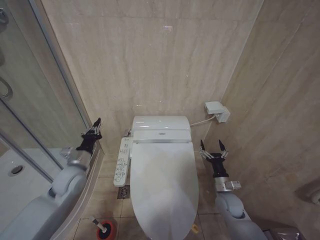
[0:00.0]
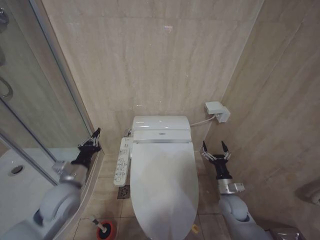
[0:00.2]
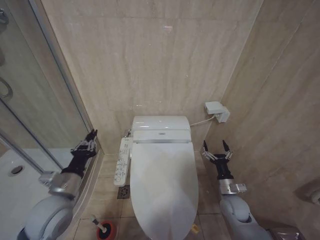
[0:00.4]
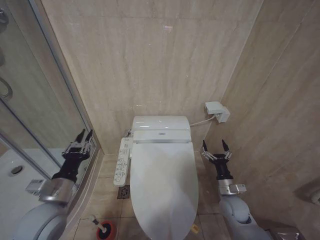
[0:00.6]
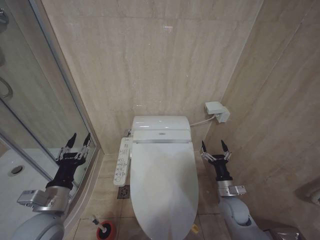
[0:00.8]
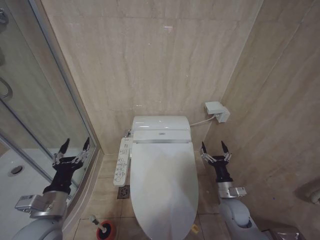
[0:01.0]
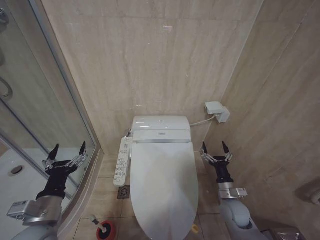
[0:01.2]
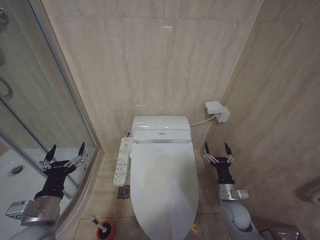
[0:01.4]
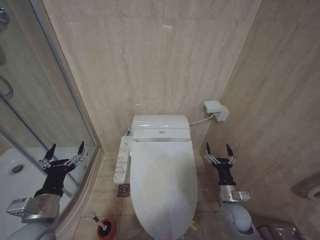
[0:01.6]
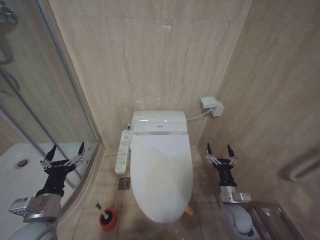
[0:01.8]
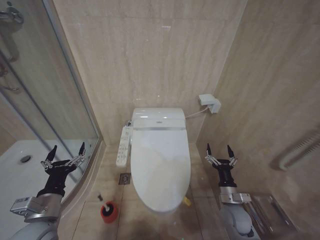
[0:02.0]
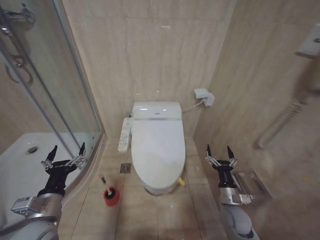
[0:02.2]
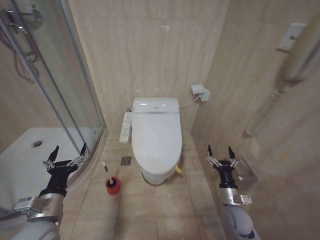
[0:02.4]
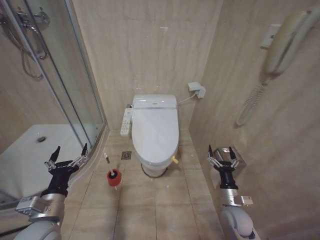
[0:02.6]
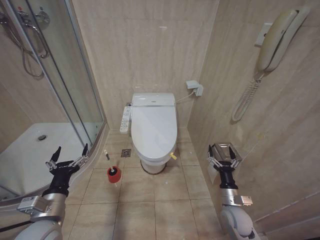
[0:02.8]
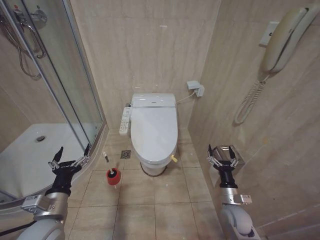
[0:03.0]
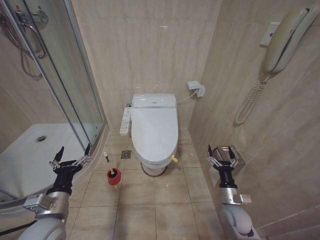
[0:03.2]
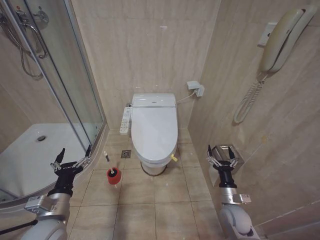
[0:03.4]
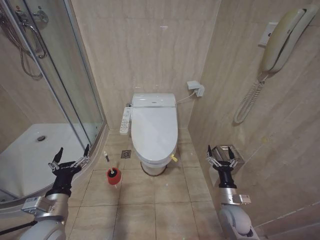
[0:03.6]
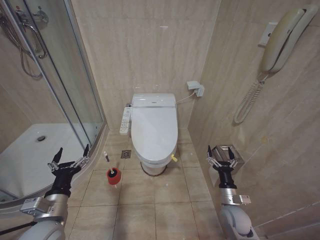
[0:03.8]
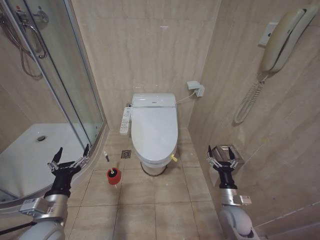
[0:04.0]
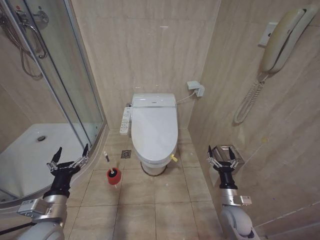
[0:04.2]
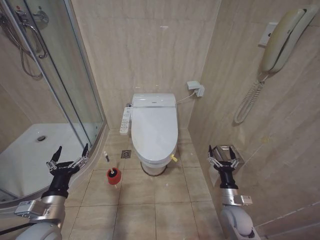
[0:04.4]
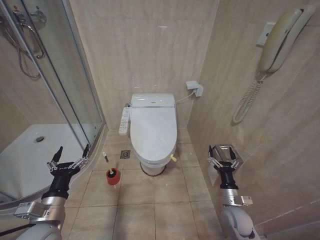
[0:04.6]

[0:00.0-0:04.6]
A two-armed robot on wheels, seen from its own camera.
Task of the whole recording: Open the toilet lid, clean the toilet bowl with a toilet brush, close the toilet lid, and flush.
0:00.0 to 0:01.6: The right gripper ends up some 5 cm from where it was. The left gripper goes some 20 cm backward, and opens up.
0:03.0 to 0:04.6: Neither gripper changes place.
